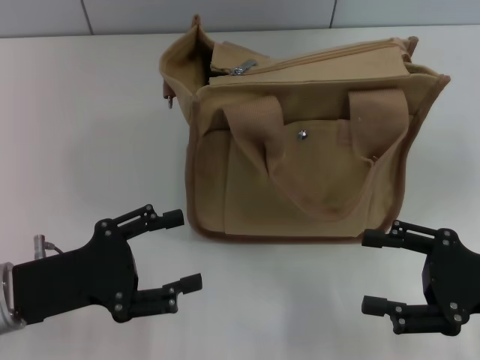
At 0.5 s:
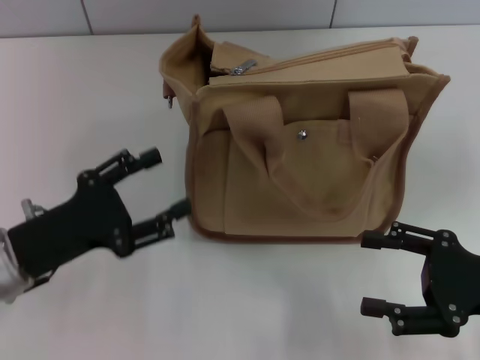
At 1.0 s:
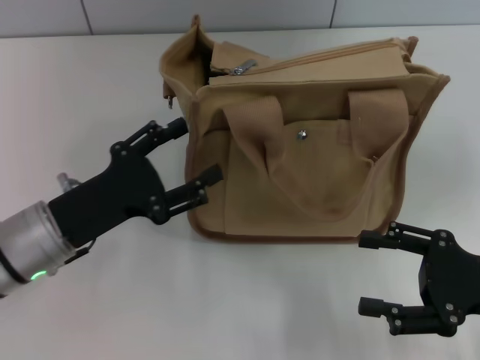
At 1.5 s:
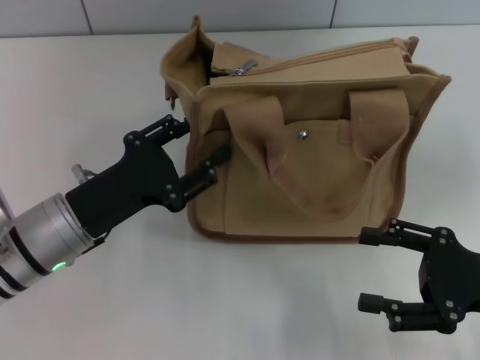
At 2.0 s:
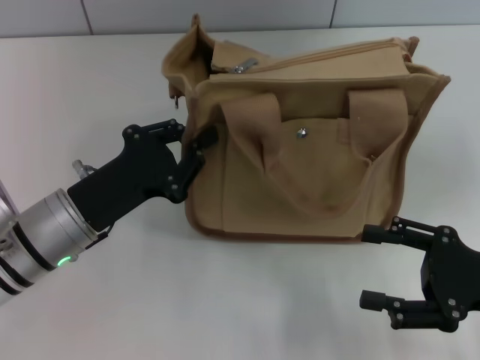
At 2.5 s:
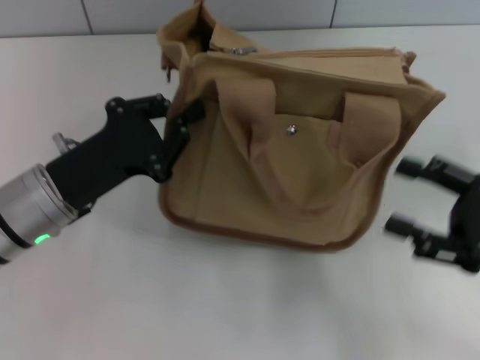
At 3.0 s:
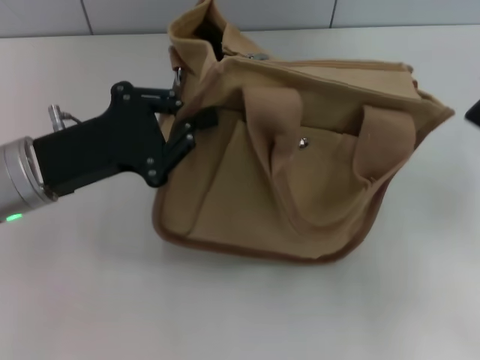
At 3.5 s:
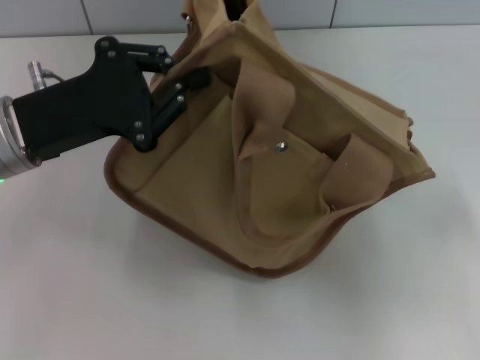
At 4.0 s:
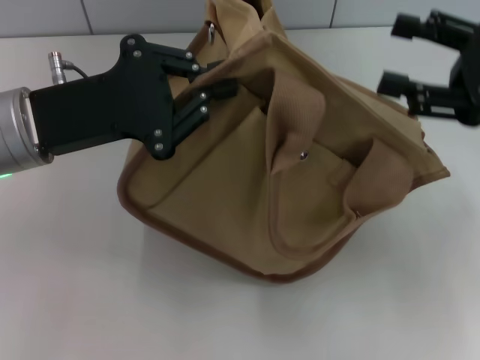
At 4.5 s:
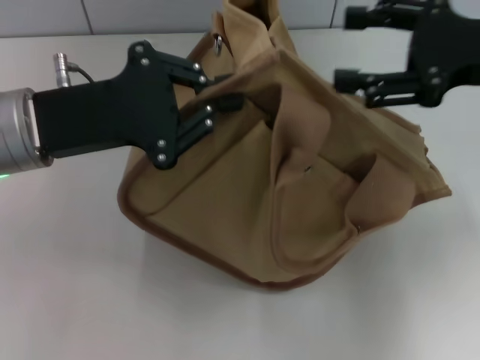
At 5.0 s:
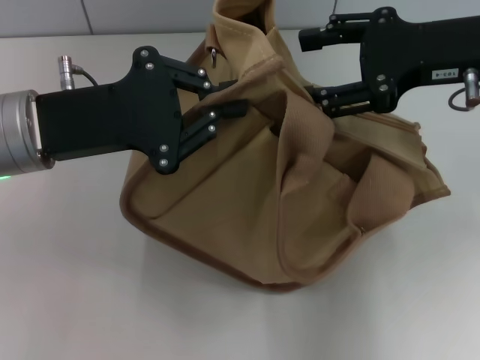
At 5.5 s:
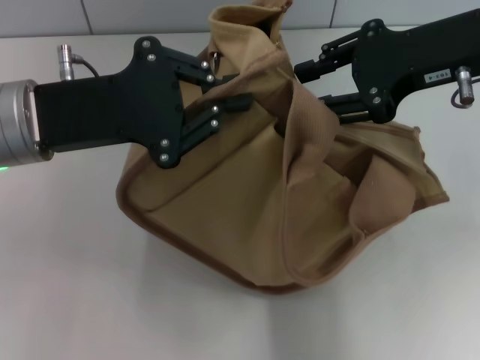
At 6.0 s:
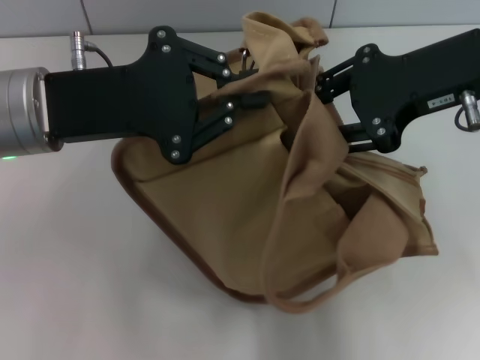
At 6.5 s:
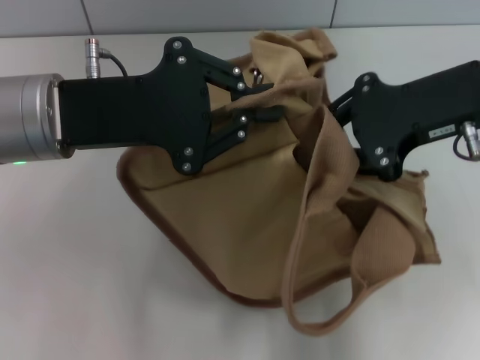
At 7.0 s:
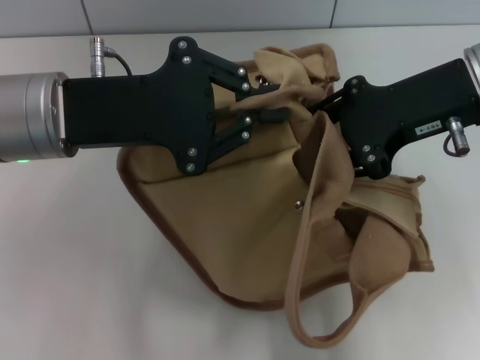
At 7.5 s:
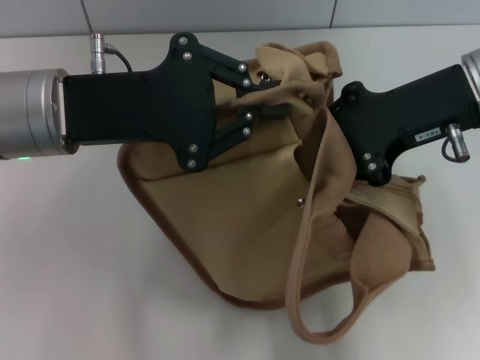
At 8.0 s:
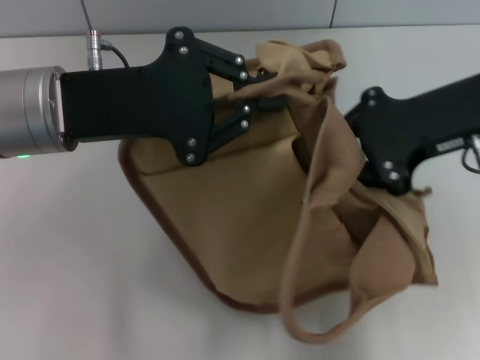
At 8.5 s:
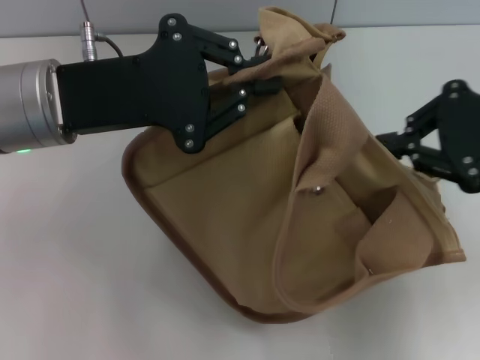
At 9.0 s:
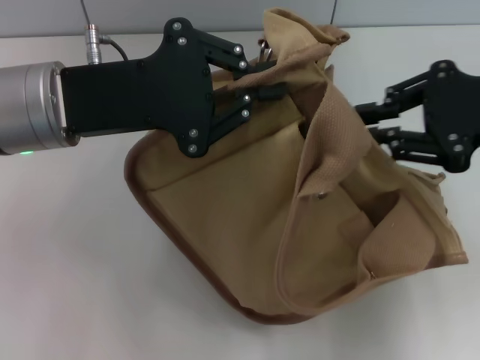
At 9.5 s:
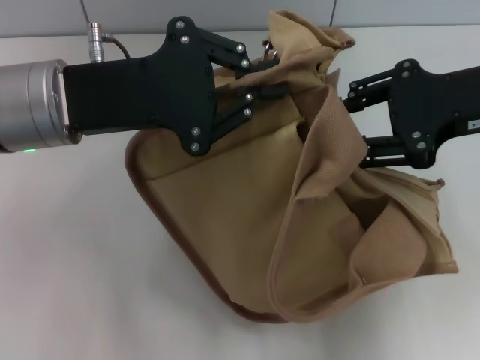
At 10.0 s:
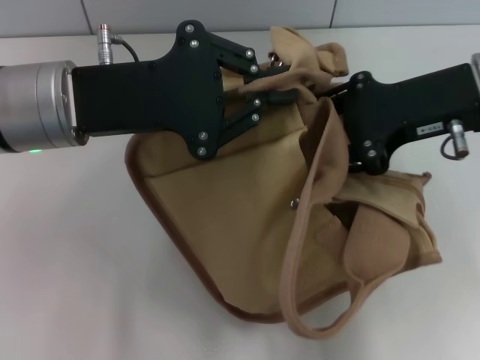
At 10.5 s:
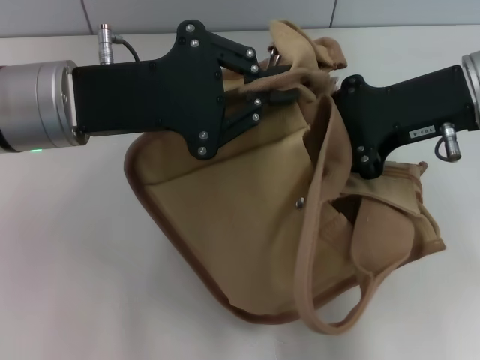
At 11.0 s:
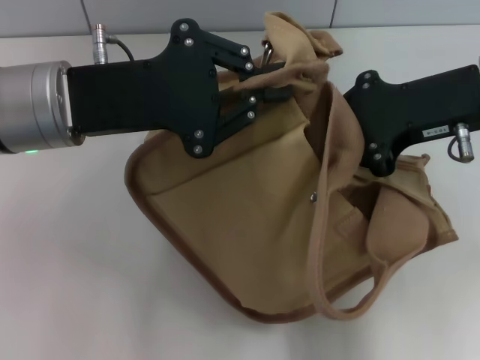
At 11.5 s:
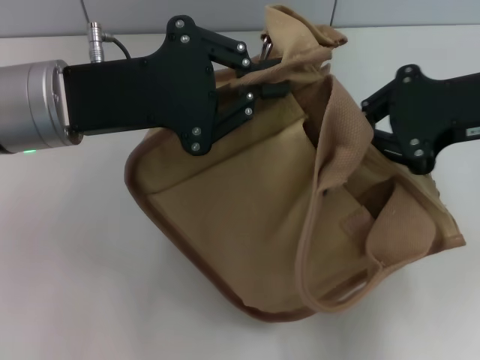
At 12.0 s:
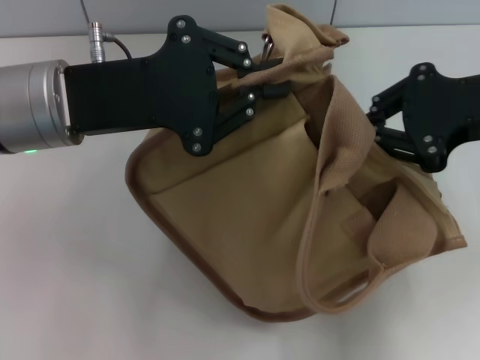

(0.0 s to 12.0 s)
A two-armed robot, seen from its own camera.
0.0 s - 2.0 s: The left gripper goes about 5 cm to the right and forward, and closes up.
2.0 s - 4.0 s: The left gripper heads upward, covering about 10 cm, and closes up. Meanwhile the right gripper heads upward and forward, covering some 15 cm.
4.0 s - 6.0 s: The right gripper goes roughly 10 cm to the left and upward.
6.0 s - 8.0 s: The right gripper closes.
8.0 s - 10.0 s: The right gripper opens up.
10.0 s - 12.0 s: The right gripper closes its fingers.

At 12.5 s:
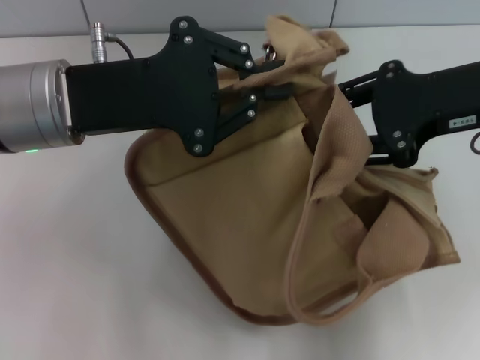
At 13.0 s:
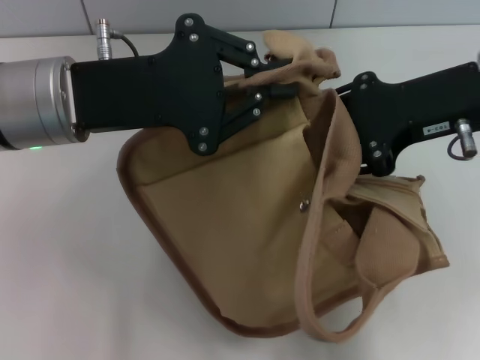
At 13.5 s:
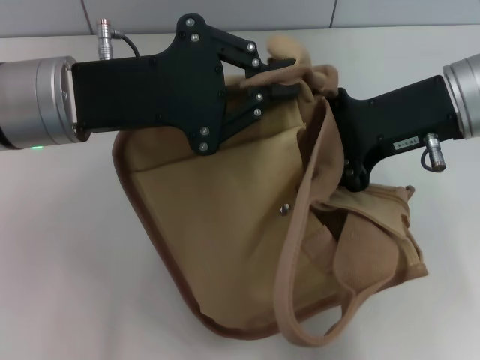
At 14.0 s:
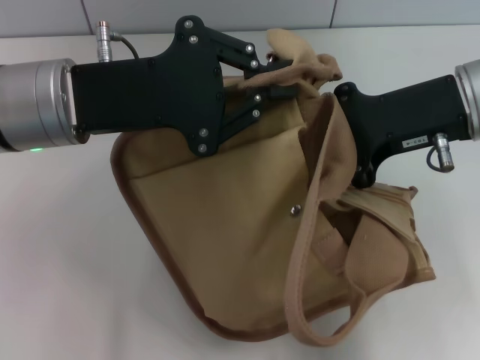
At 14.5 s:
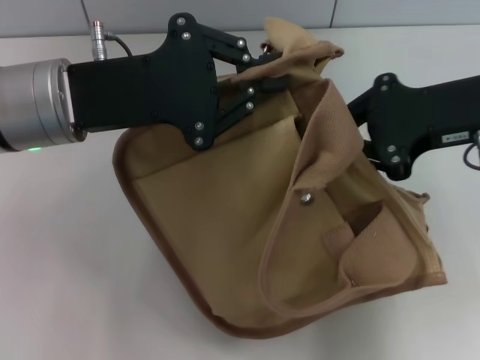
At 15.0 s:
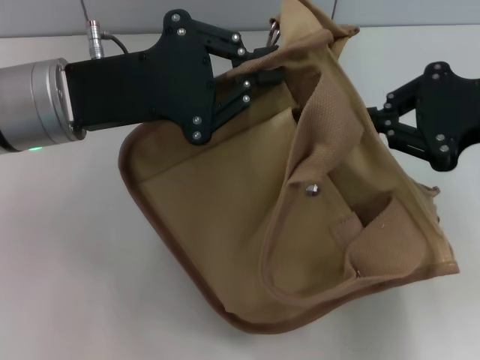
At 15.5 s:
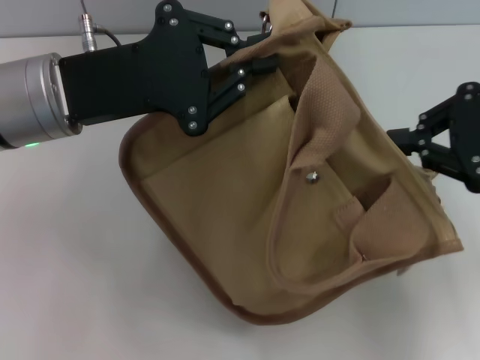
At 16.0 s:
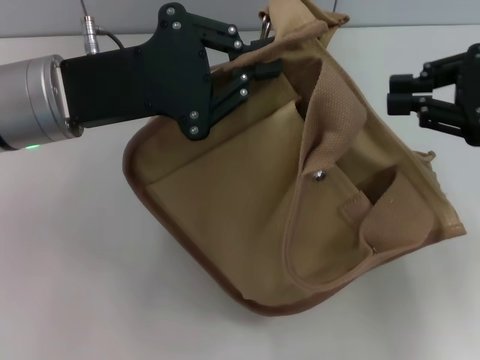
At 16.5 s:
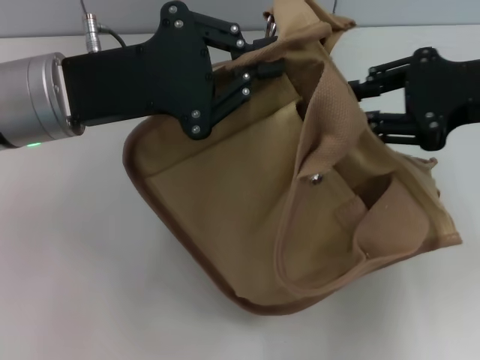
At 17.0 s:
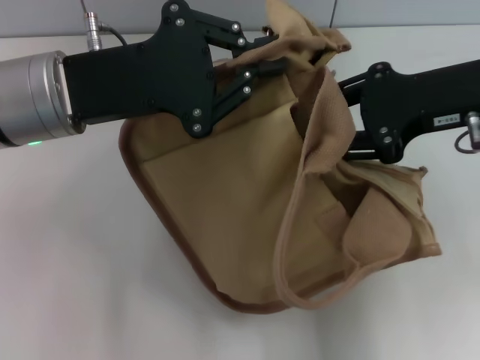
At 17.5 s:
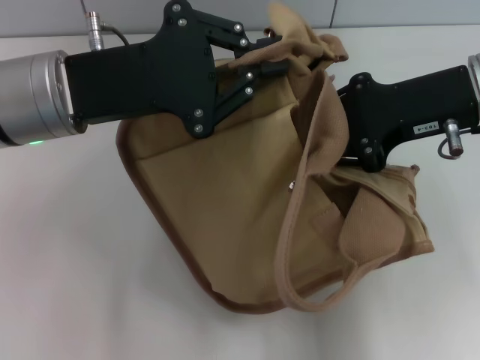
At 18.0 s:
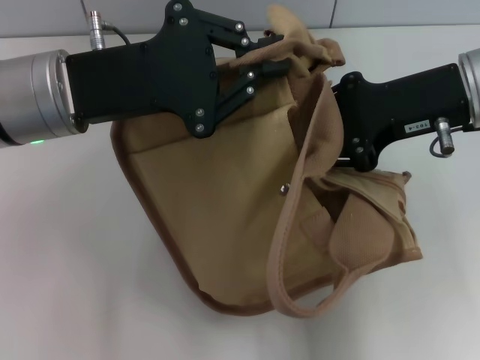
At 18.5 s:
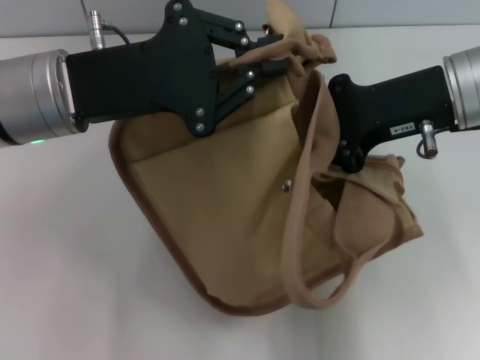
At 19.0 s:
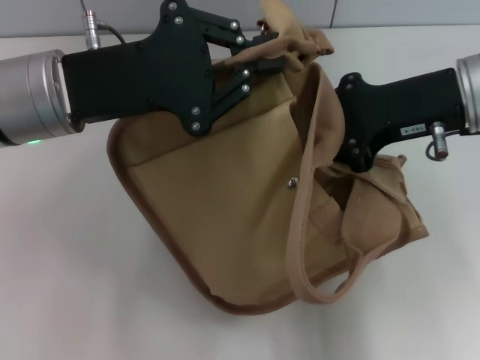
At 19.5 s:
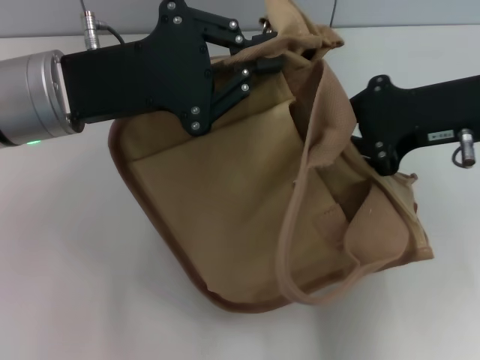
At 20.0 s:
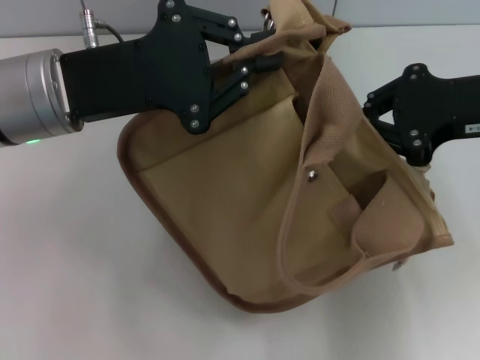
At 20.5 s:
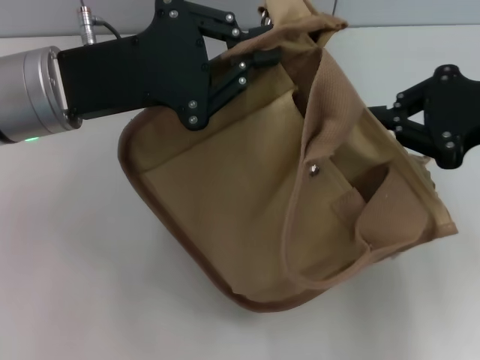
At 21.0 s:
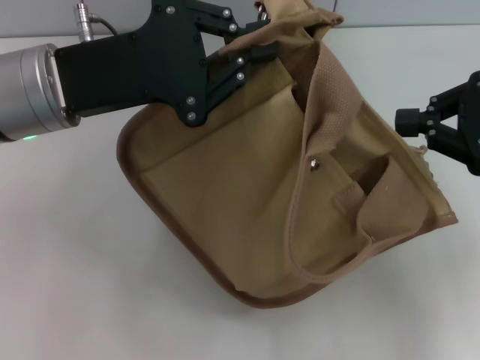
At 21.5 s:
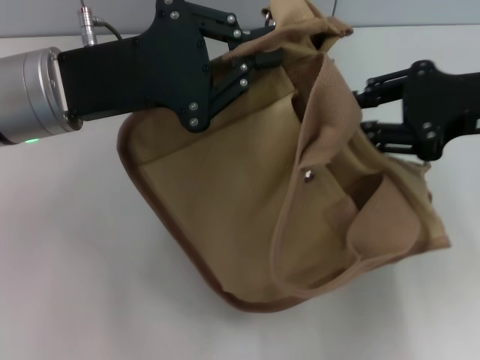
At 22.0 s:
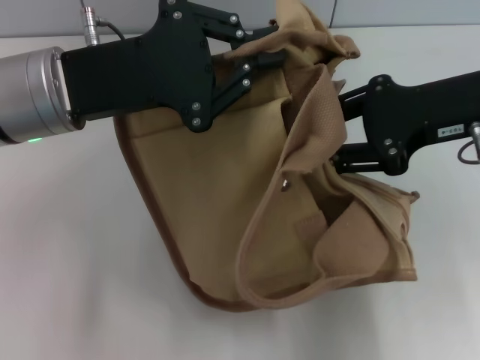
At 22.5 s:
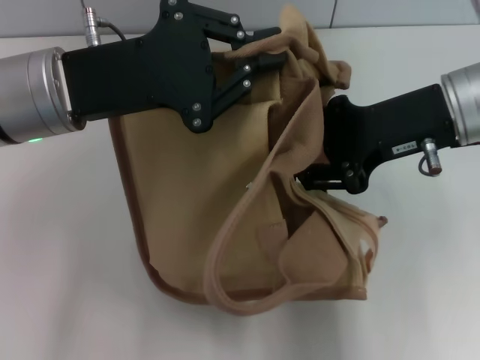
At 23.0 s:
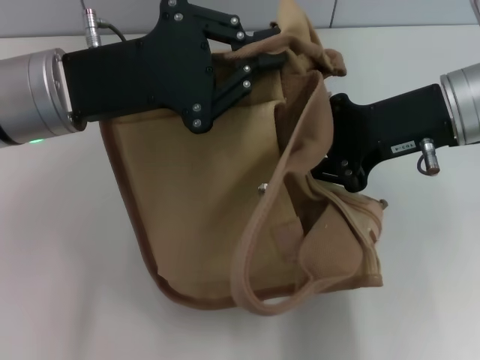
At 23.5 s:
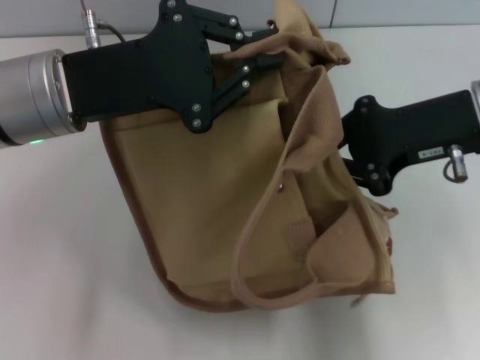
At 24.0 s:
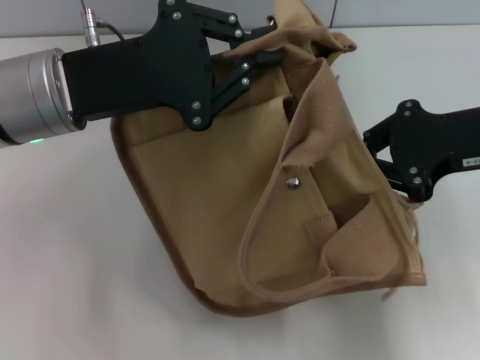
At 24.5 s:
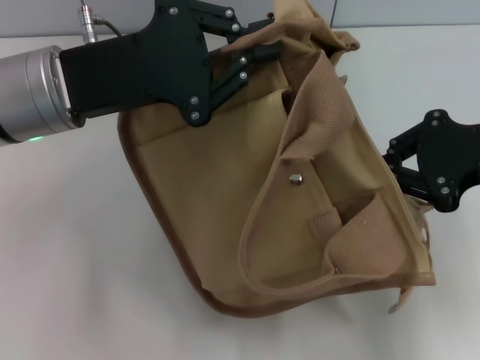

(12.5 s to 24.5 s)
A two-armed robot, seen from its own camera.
12.5 s - 14.5 s: The right gripper closes.
16.5 s - 18.5 s: The right gripper moves to the left, roughly 5 cm.
18.5 s - 20.5 s: The right gripper is displaced to the right by some 10 cm.
20.5 s - 22.5 s: The right gripper heads to the left, covering about 10 cm, and opens up.
22.5 s - 24.5 s: The right gripper moves to the right, roughly 10 cm, and closes up.

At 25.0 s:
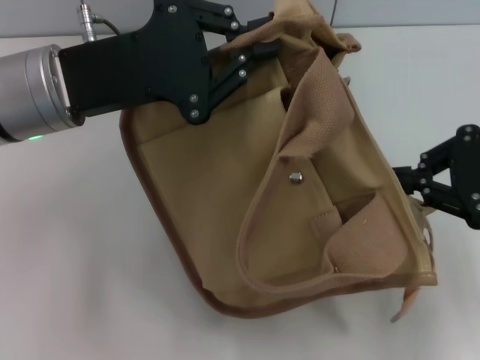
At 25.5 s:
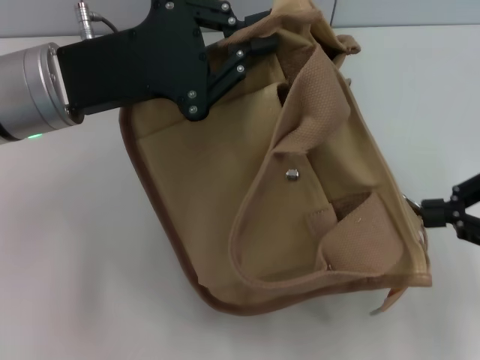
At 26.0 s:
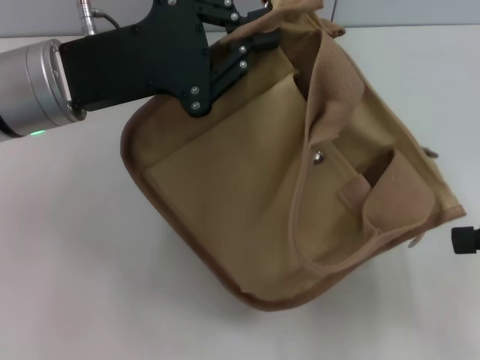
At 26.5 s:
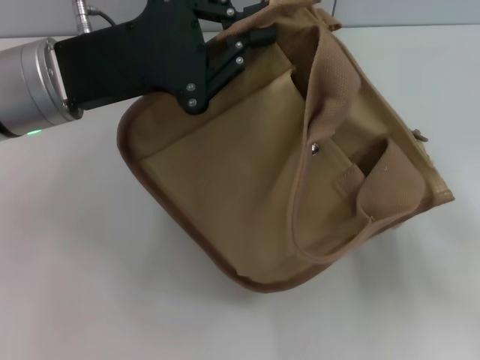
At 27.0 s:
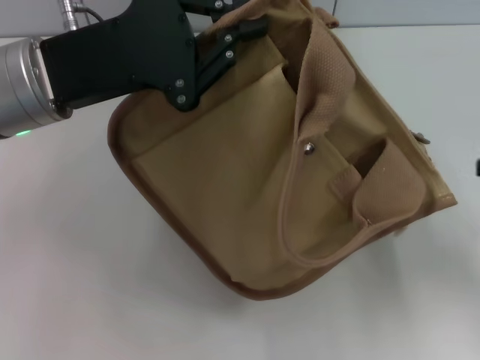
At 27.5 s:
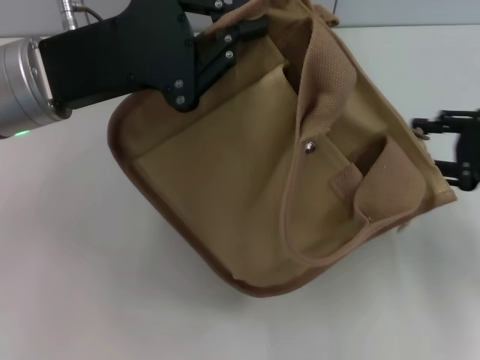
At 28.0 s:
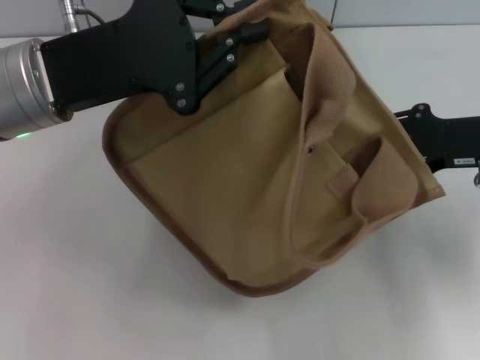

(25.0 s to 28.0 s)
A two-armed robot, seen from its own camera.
25.0 s - 26.5 s: The right gripper travels to the right by roughly 10 cm.
26.5 s - 28.0 s: The right gripper goes some 15 cm to the left and forward, and opens its fingers.
